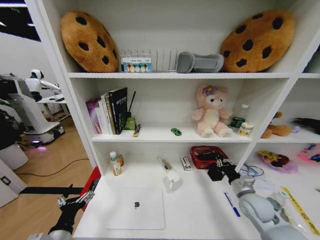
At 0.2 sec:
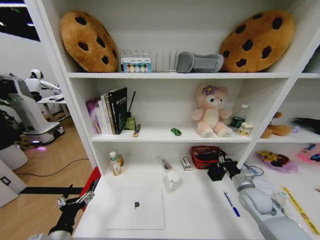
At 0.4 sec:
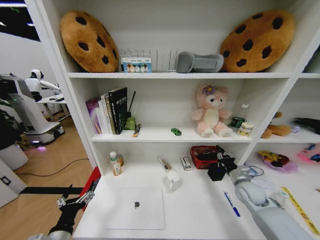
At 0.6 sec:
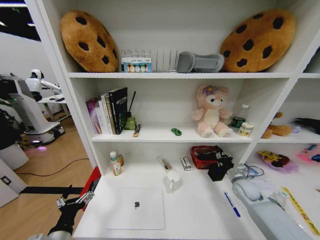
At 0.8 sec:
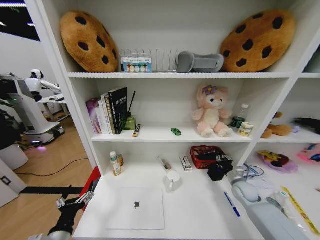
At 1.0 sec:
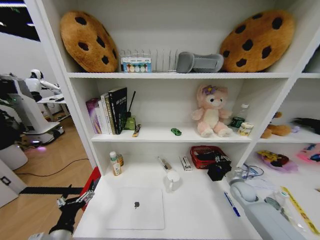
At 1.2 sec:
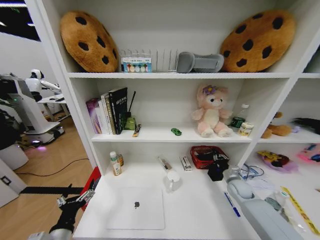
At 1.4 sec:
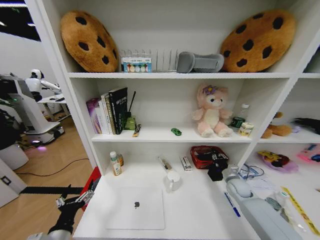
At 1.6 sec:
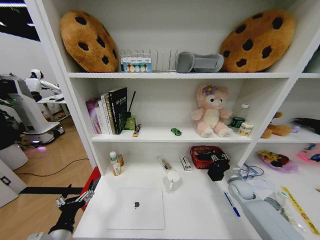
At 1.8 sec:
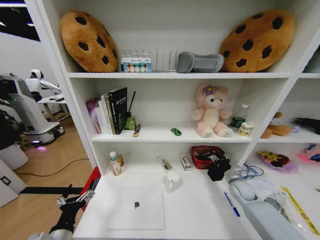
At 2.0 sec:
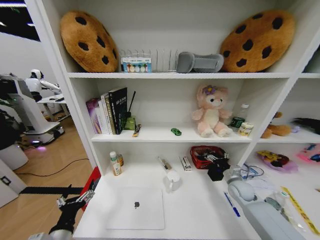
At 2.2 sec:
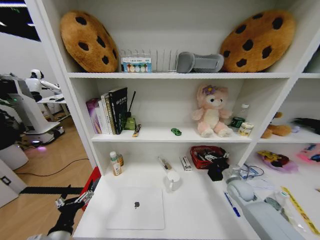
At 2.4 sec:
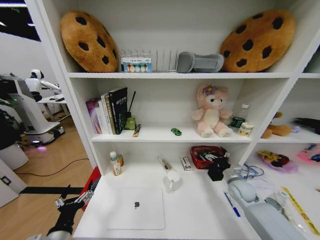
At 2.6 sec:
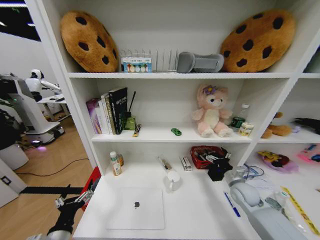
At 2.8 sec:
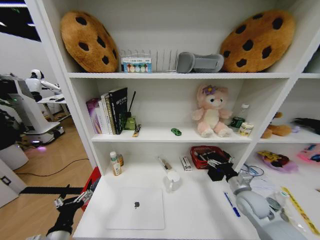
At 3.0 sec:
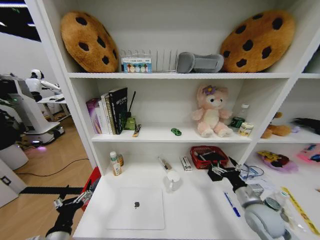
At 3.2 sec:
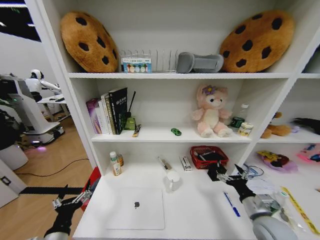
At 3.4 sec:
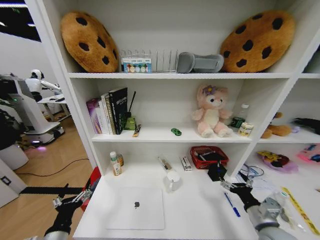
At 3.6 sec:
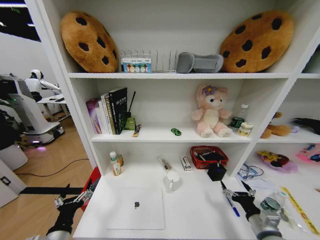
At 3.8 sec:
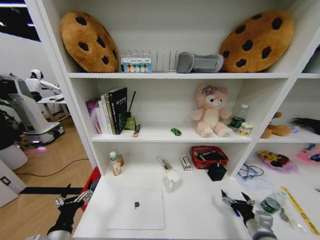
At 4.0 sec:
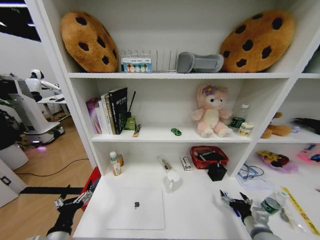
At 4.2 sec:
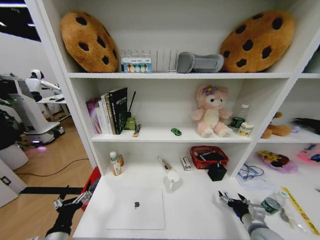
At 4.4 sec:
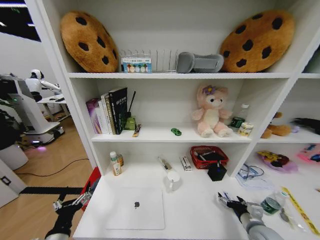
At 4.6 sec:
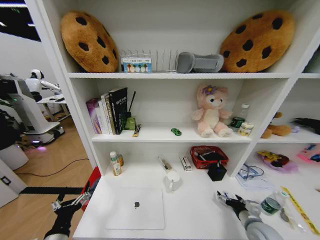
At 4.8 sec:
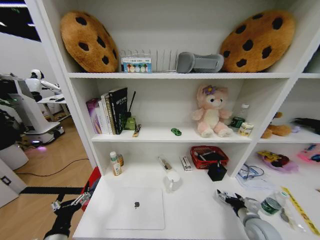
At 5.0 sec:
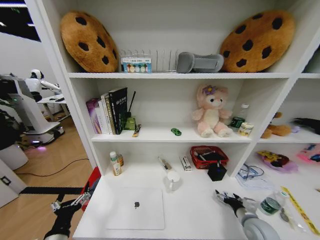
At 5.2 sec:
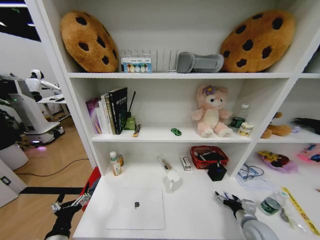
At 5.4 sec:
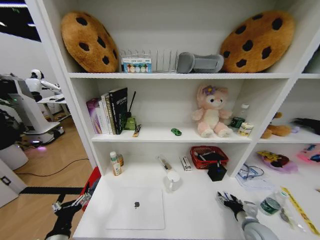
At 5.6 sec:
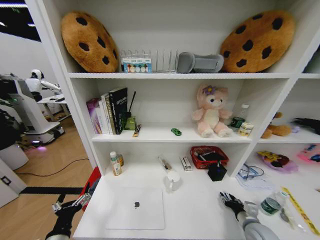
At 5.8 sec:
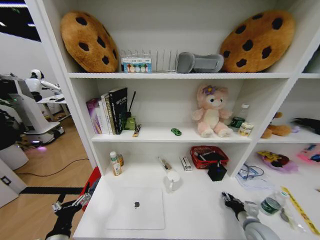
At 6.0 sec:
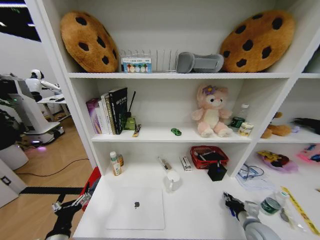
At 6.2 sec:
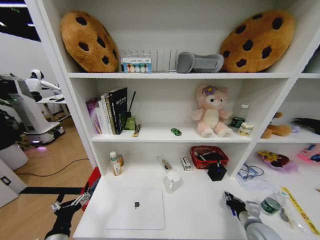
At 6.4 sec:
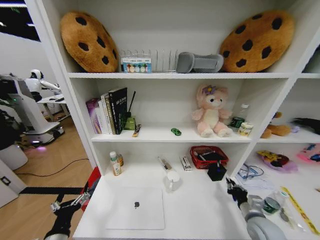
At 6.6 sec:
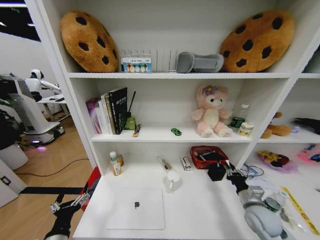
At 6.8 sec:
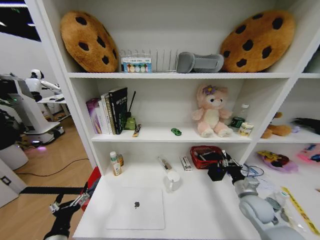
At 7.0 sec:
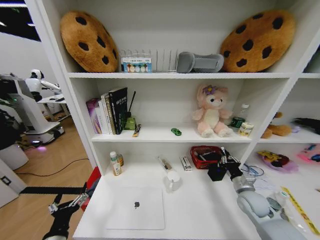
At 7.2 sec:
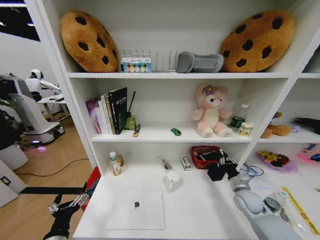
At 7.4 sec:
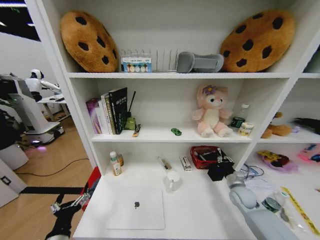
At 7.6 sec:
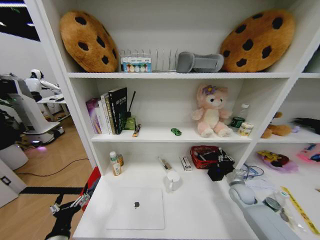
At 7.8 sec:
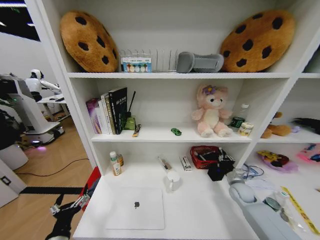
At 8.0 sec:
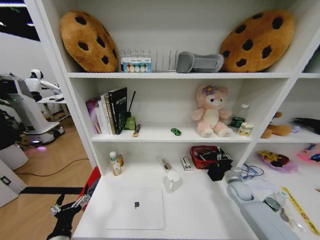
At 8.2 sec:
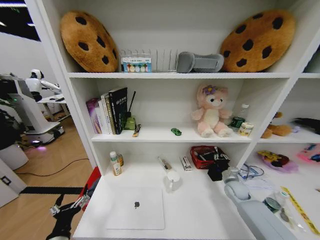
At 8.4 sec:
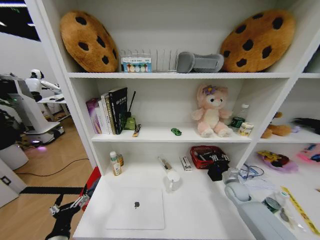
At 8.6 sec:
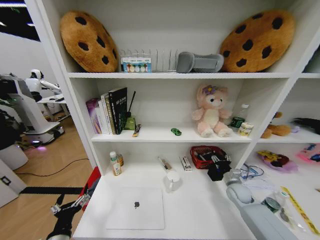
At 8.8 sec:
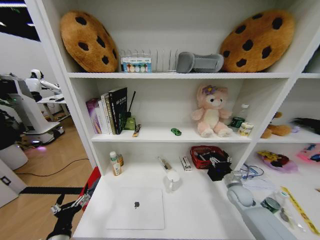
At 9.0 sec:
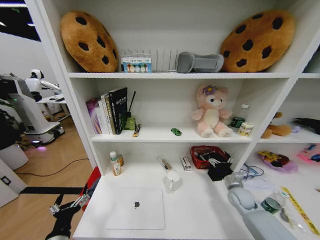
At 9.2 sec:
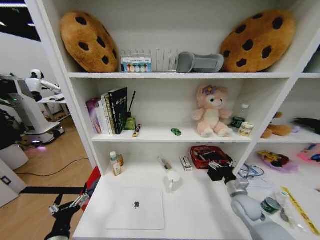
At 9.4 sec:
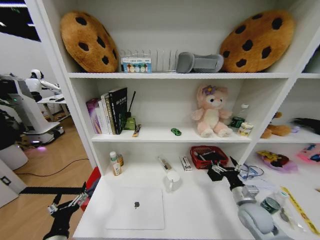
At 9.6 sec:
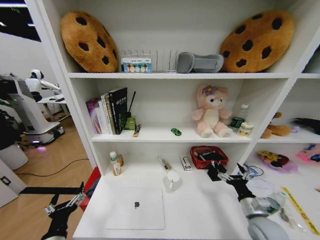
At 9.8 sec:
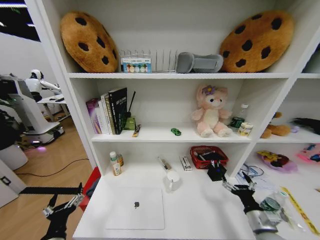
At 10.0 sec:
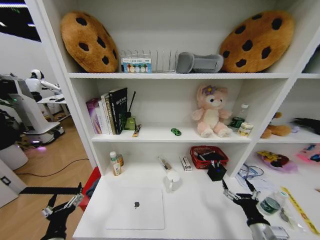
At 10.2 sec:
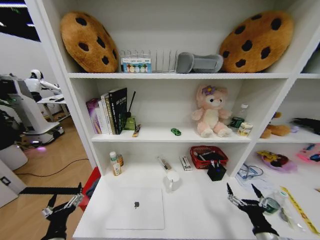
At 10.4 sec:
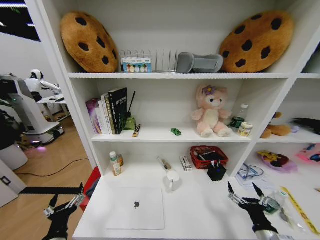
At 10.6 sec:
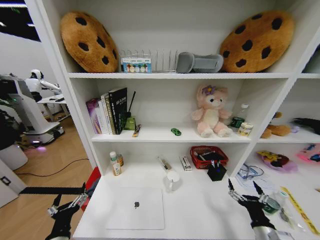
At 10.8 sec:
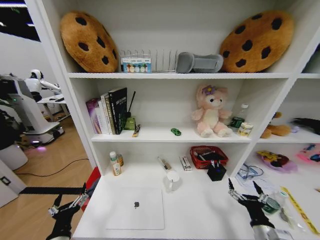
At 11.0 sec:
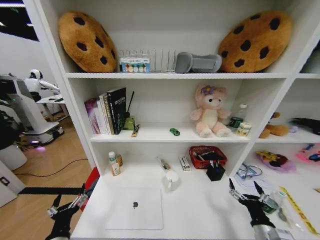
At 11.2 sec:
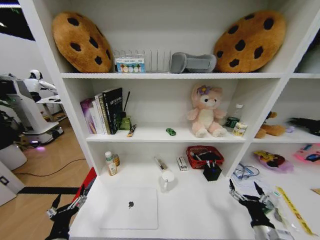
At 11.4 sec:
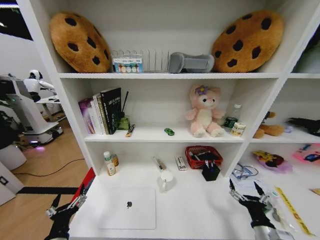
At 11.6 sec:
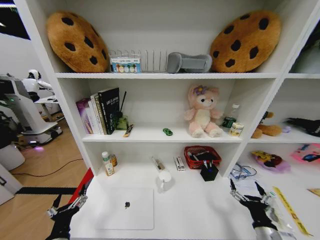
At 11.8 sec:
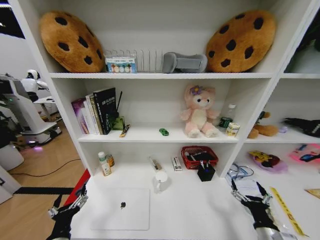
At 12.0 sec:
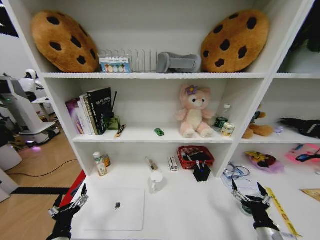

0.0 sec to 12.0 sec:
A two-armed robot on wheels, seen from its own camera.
Task of the whole recording: Organize the objects on the table.
0.0 sec to 1.6 sec: The right gripper moves forward, downward and to the right, about 15 cm.
1.6 sec to 3.0 sec: The right gripper travels backward and upward by approximately 15 cm, and opens its fingers.
3.0 sec to 4.4 sec: The right gripper goes about 5 cm downward.
4.4 sec to 6.0 sec: The right gripper closes its fingers.
6.0 sec to 7.6 sec: The right gripper moves forward, roughly 15 cm.
7.6 sec to 9.0 sec: The right gripper opens.
9.0 sec to 10.4 sec: The right gripper heads backward, covering approximately 25 cm.

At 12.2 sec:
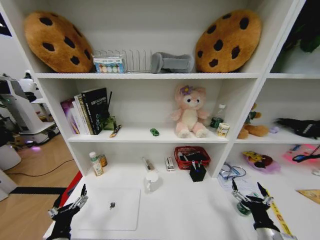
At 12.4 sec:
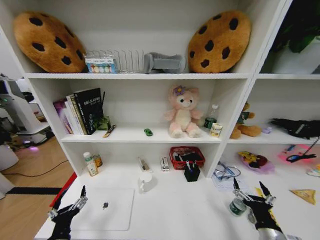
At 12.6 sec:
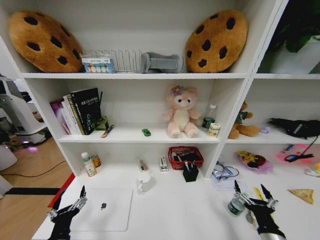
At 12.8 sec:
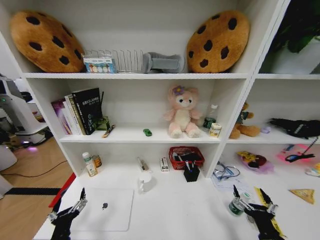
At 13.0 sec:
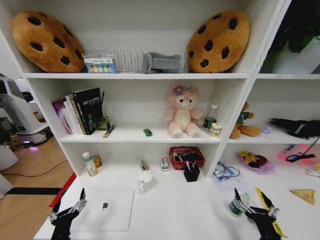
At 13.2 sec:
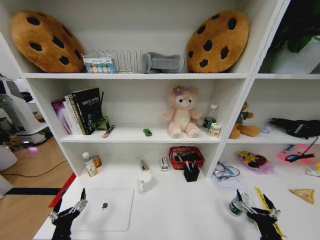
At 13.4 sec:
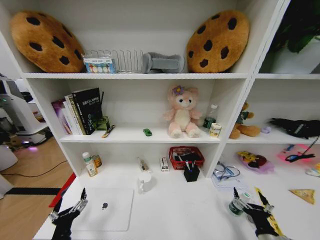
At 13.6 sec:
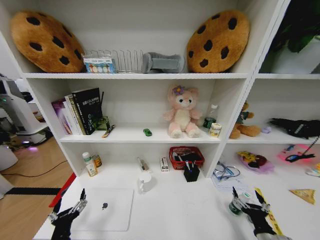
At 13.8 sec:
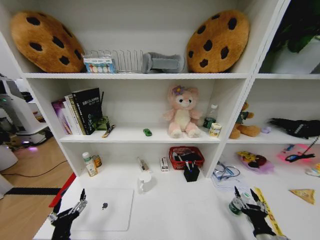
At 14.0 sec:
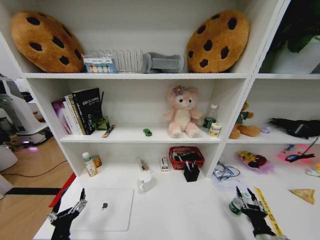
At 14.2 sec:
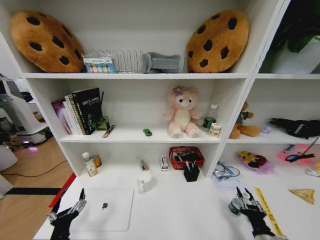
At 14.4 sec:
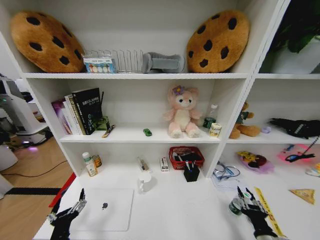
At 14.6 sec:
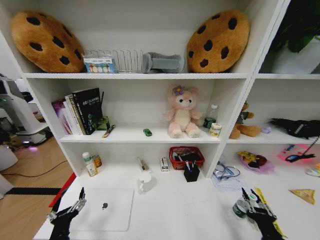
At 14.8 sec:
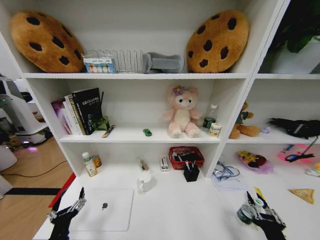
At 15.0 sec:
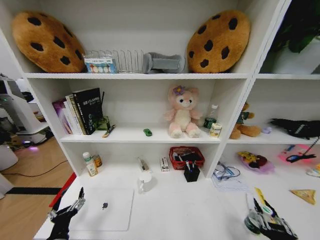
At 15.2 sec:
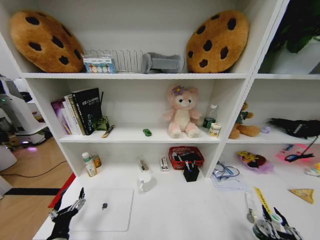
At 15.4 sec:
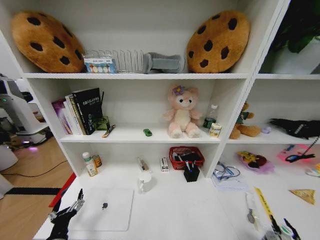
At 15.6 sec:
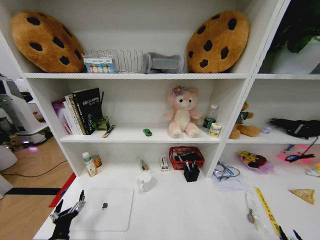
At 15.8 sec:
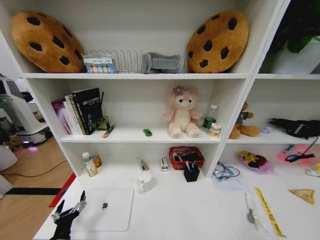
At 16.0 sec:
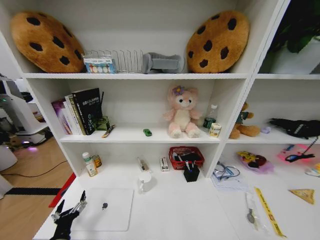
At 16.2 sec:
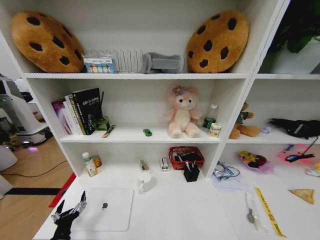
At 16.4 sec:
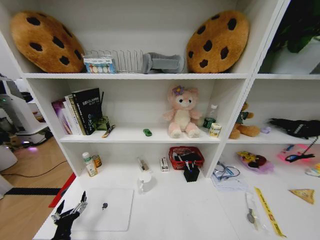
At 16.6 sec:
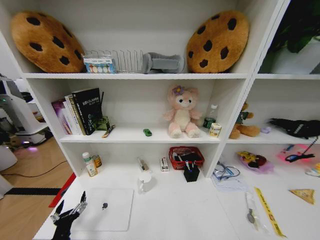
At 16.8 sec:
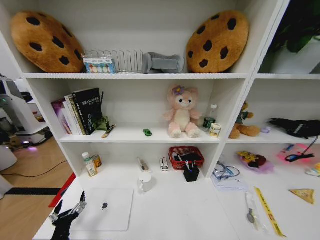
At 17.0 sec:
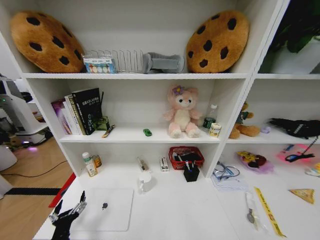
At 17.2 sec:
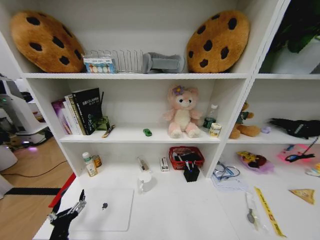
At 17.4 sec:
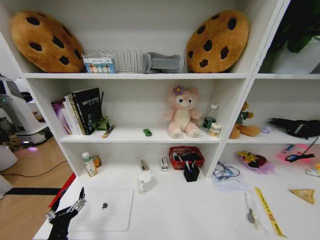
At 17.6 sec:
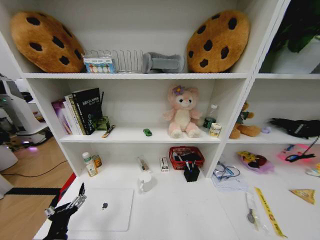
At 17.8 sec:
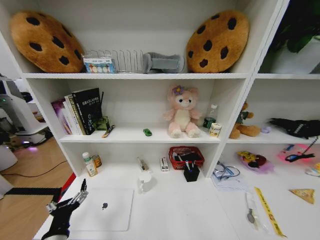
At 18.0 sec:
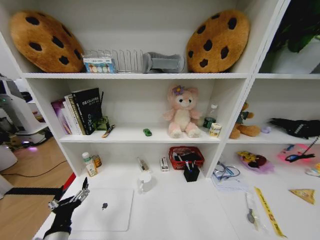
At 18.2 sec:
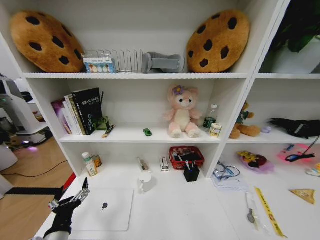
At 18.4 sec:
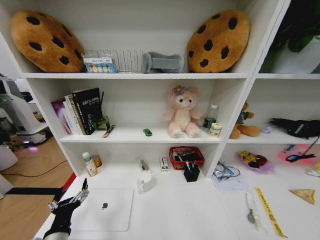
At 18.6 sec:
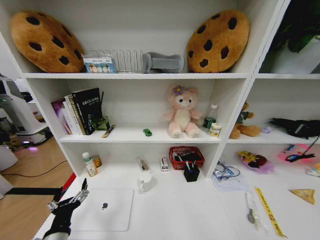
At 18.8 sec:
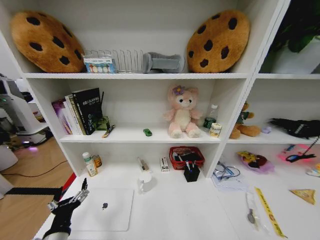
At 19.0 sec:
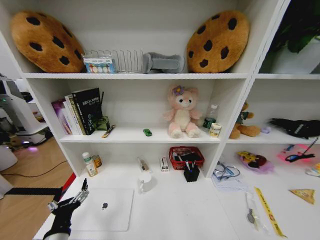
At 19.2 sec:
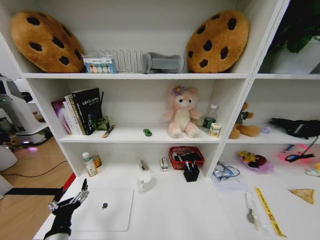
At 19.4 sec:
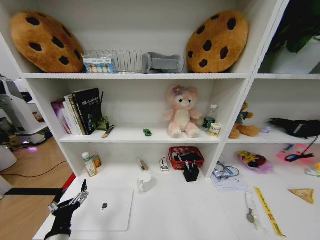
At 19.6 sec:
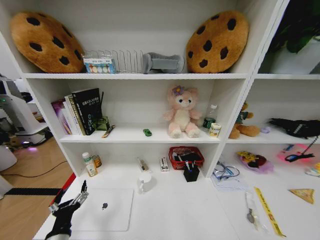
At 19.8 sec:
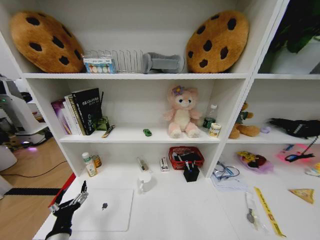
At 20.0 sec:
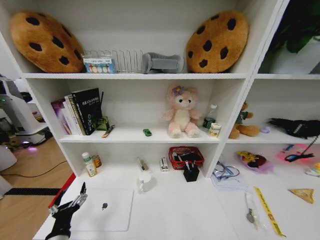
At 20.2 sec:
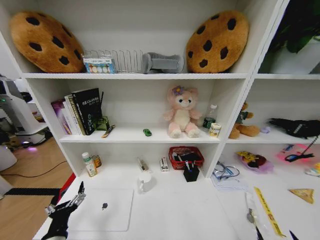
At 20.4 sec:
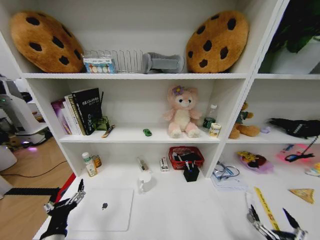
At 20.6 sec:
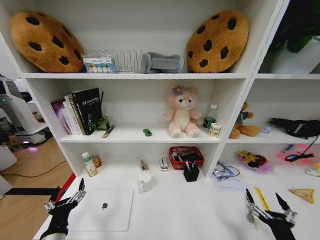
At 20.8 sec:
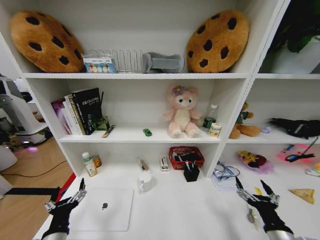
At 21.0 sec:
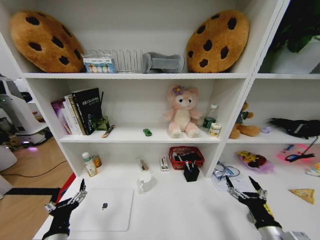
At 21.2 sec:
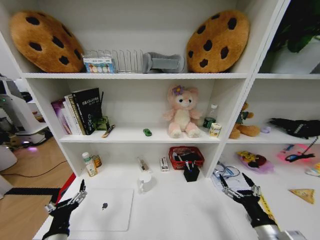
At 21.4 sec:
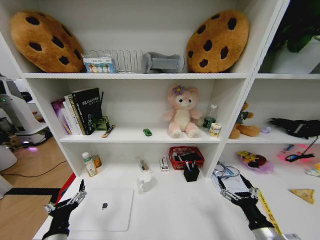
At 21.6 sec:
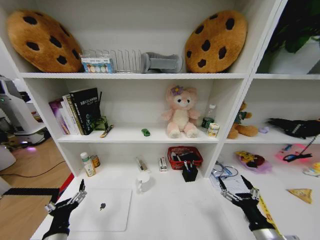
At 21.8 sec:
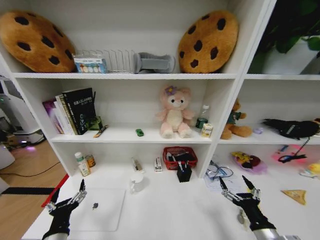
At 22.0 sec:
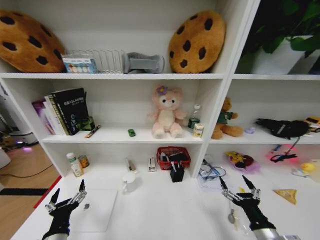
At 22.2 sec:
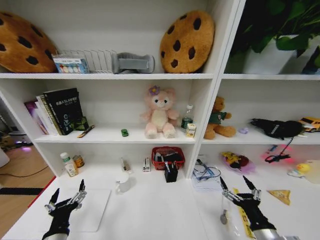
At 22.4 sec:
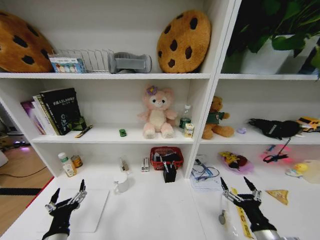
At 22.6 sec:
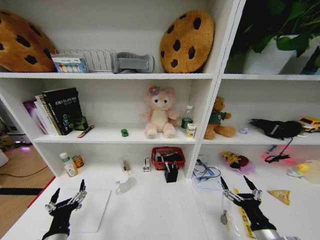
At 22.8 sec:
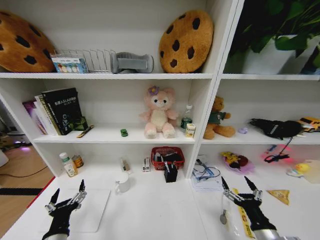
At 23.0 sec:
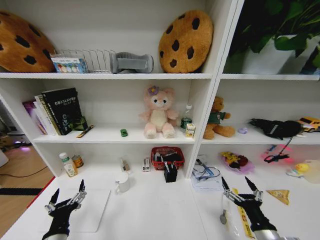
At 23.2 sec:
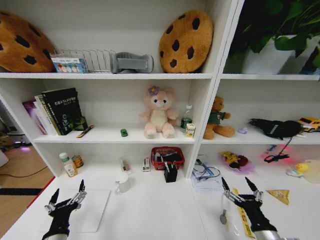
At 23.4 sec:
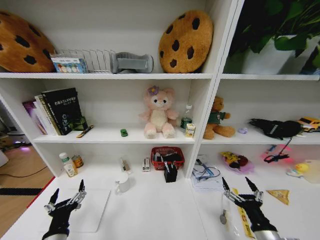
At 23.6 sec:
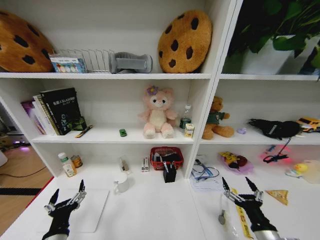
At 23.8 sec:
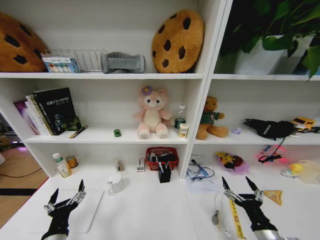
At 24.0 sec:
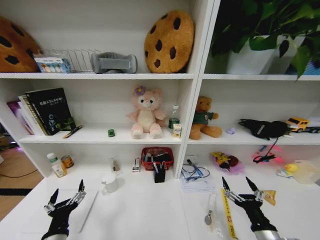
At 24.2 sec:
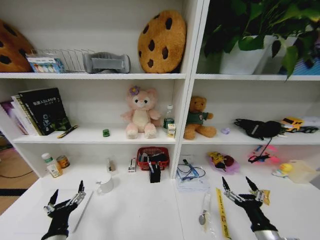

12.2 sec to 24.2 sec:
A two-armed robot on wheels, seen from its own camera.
Task of the whole recording: Organize the objects on the table.
13.8 sec to 15.2 sec: The right gripper is displaced backward and upward by approximately 10 cm, and closes.
15.2 sec to 16.6 sec: The right gripper is displaced downward and backward by some 25 cm.
16.6 sec to 18.2 sec: The left gripper moves upward, some 10 cm.
18.2 sec to 19.8 sec: The right gripper heads backward and upward, covering about 25 cm, and opens its fingers.
19.8 sec to 21.2 sec: The right gripper goes about 35 cm forward and upward.
